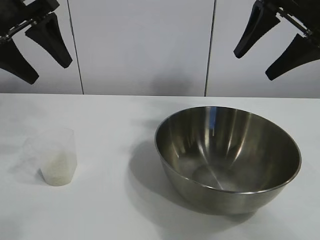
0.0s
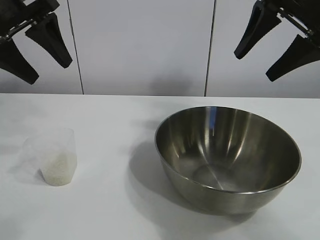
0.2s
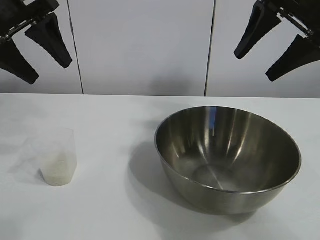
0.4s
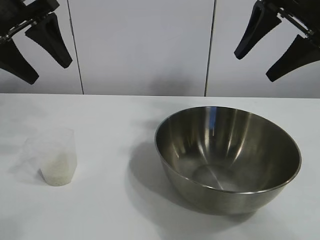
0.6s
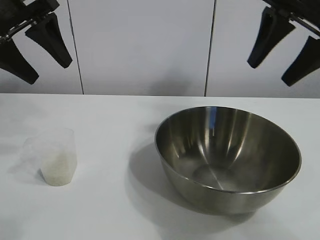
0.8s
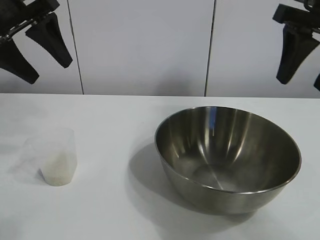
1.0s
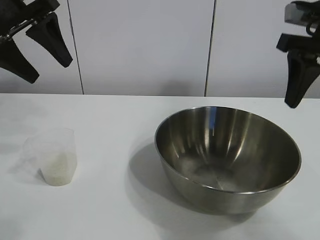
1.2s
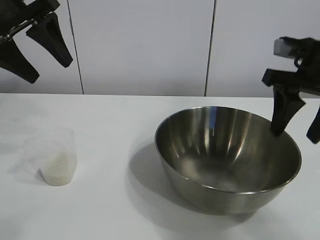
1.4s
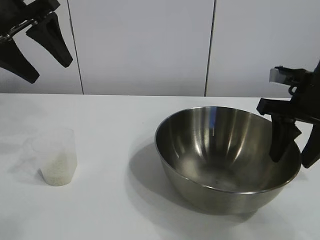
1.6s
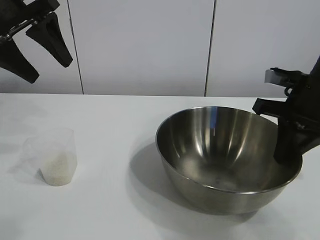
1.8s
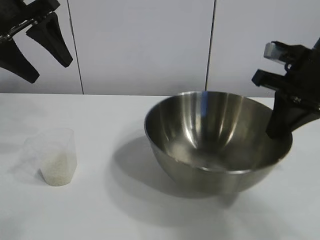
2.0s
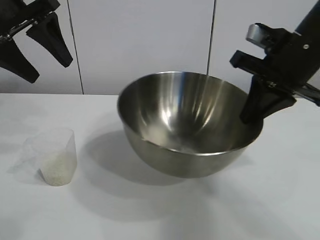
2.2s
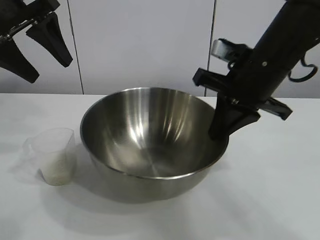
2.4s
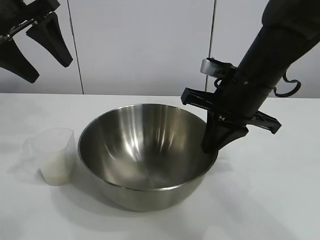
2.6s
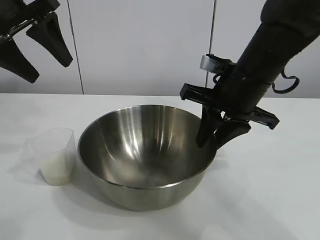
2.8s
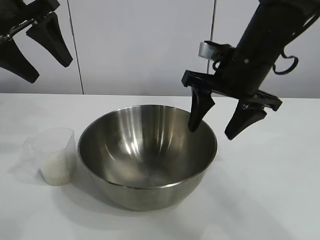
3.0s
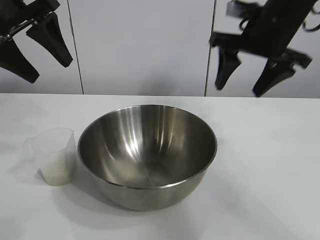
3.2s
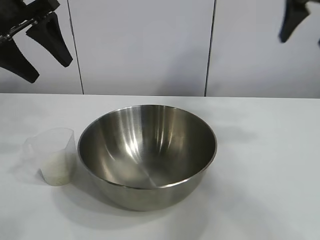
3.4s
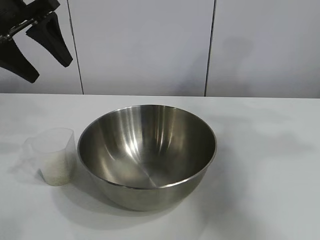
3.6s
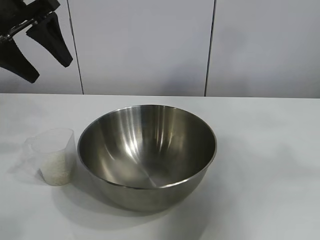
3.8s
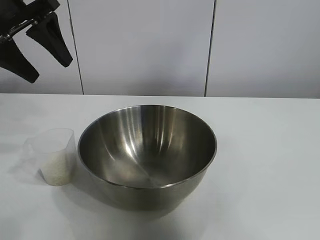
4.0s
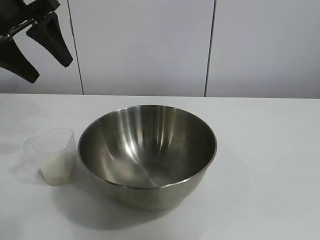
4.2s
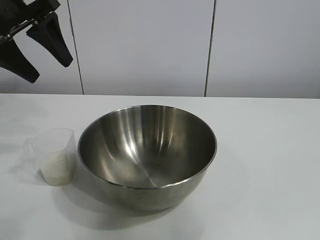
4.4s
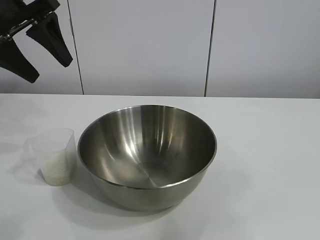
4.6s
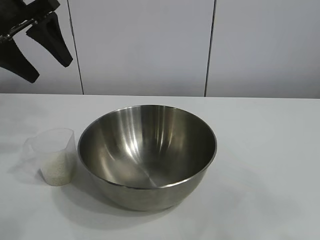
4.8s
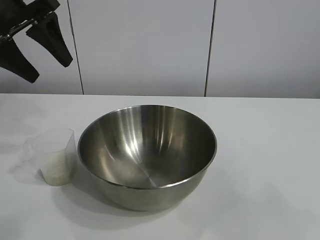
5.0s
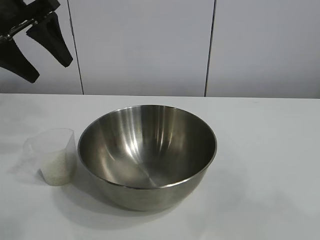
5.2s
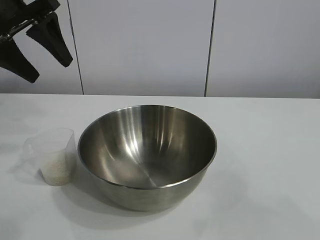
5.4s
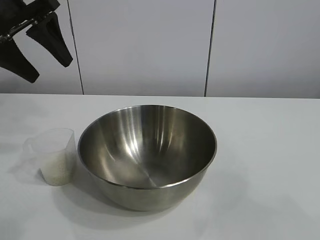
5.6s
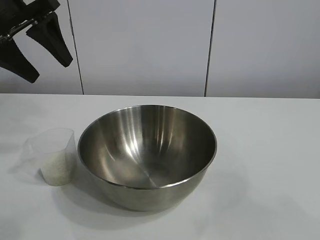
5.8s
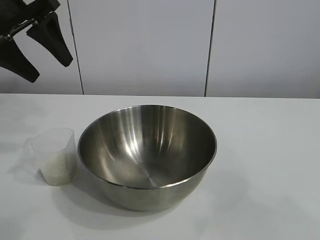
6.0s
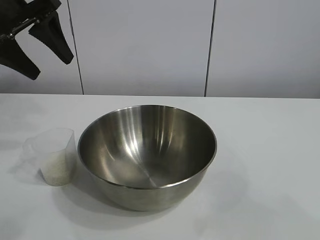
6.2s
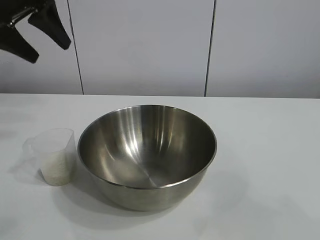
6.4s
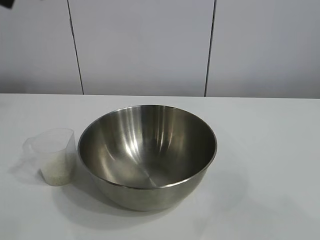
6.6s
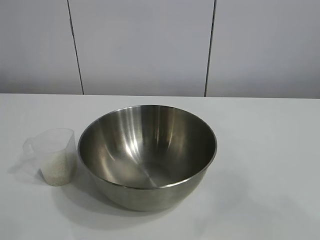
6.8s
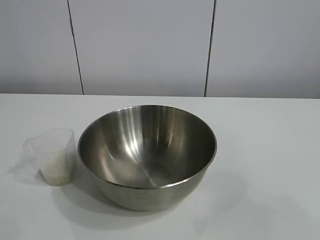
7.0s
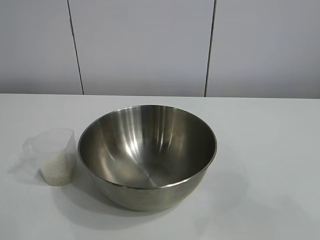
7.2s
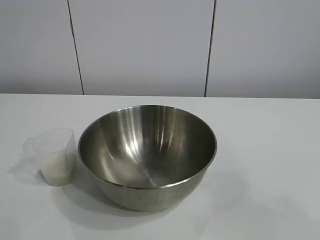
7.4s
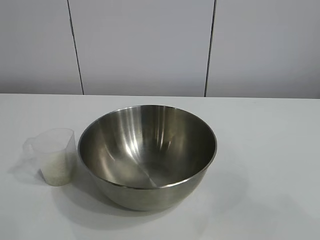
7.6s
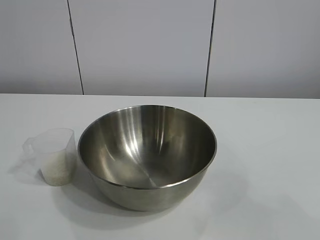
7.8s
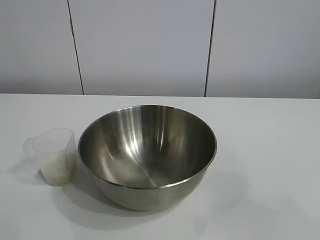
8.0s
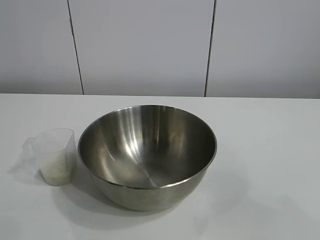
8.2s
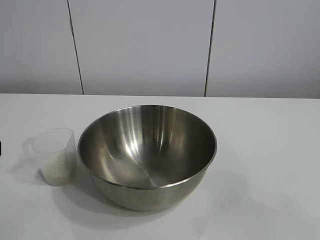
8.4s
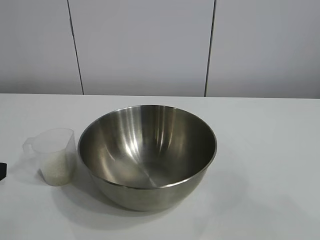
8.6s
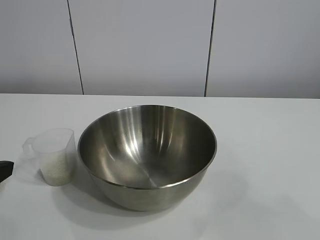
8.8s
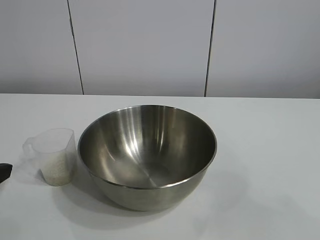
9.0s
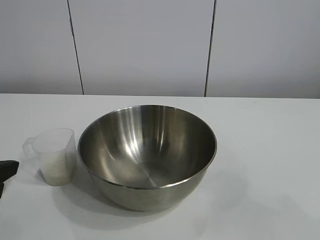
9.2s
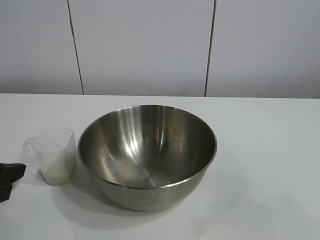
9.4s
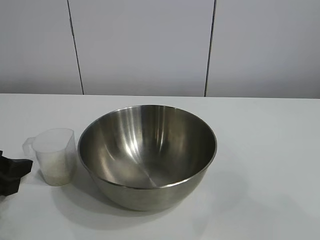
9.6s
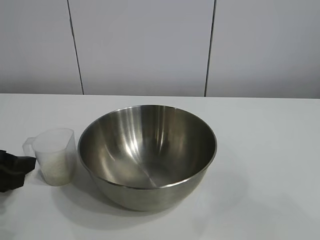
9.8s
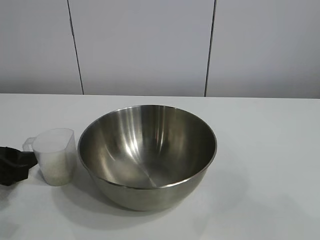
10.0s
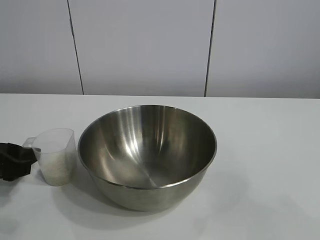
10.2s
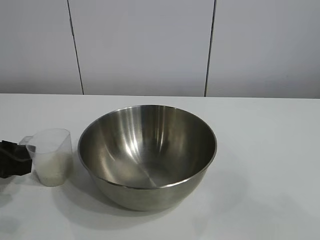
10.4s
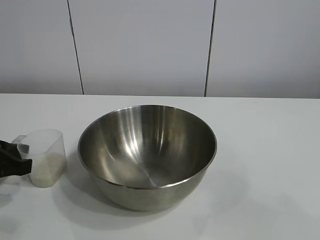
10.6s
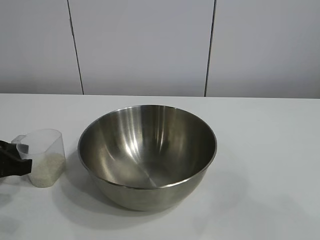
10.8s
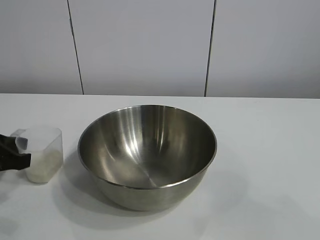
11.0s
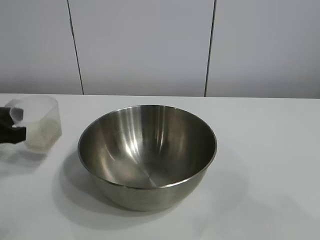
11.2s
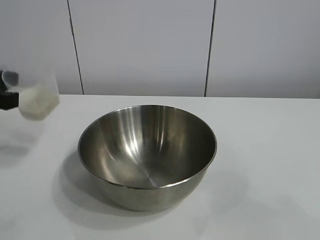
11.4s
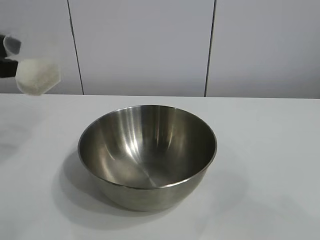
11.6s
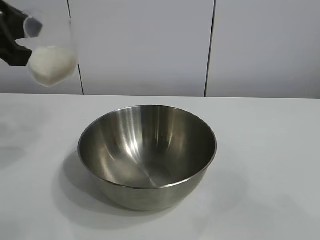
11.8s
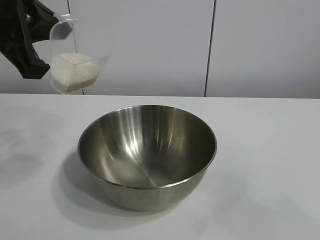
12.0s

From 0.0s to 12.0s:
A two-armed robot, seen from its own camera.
Task of the whole recording: the right gripper grasp the rice container and place it in the center of the table, the left gripper grasp the rice scoop and pour the rice into the rice container.
Step, from 0.6s to 2.6s: Move the bowl in the center of view with right gripper.
Step, from 3.0s to 10.8s: Grasp the cup with rice in it with left gripper.

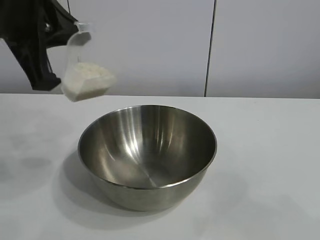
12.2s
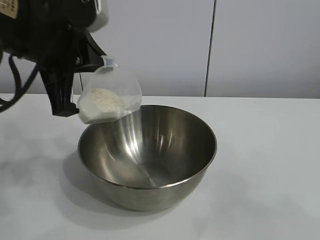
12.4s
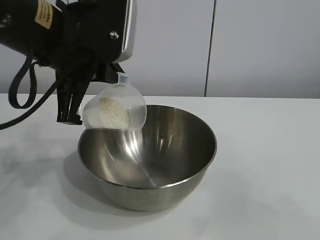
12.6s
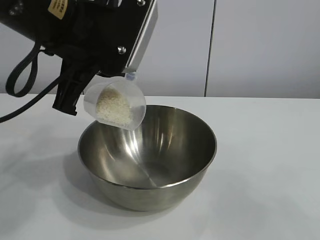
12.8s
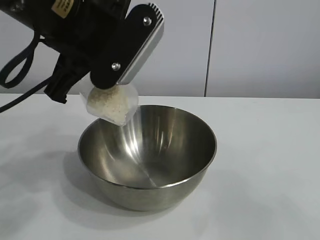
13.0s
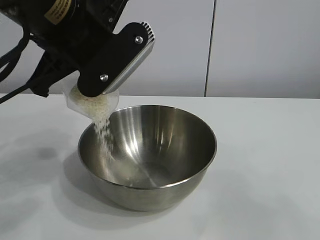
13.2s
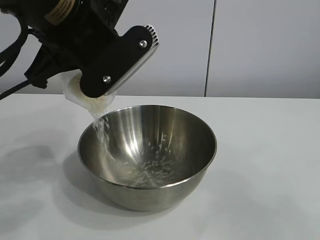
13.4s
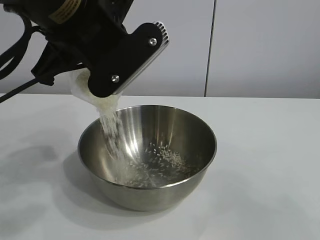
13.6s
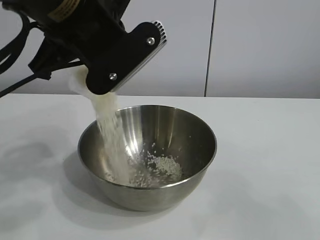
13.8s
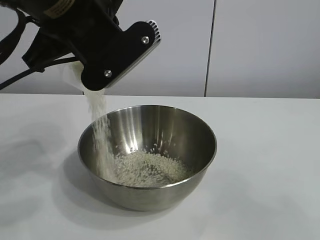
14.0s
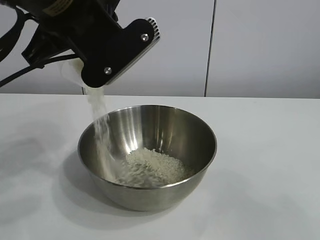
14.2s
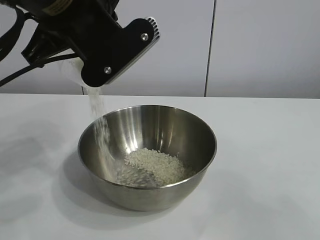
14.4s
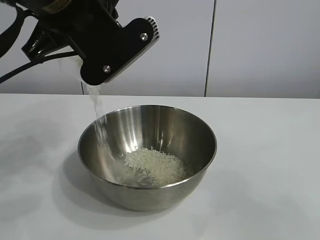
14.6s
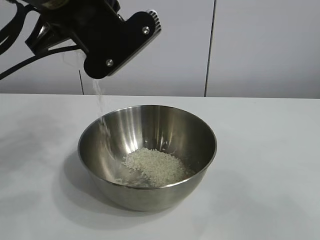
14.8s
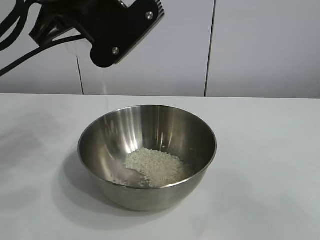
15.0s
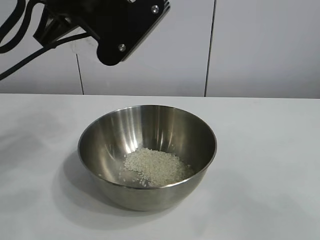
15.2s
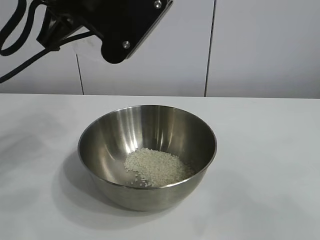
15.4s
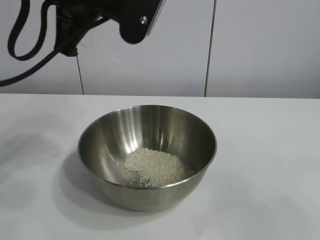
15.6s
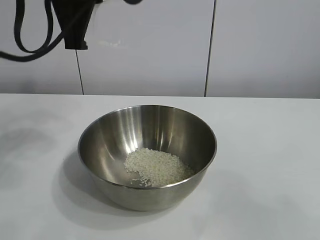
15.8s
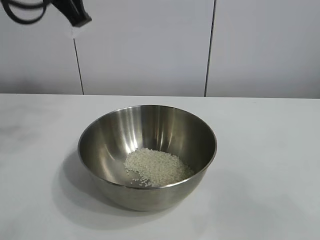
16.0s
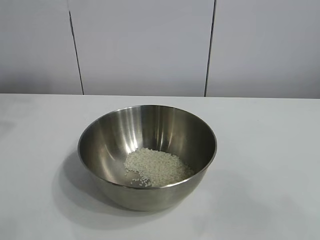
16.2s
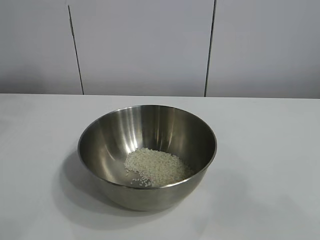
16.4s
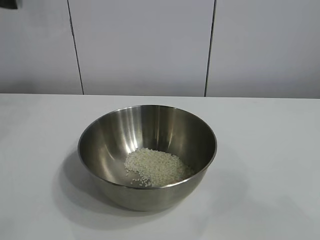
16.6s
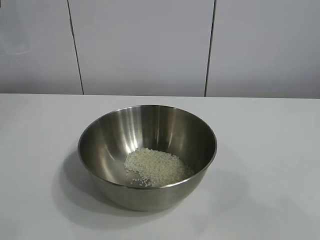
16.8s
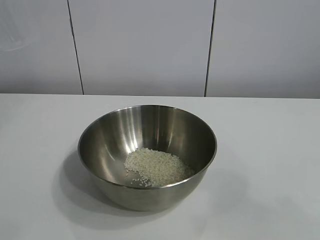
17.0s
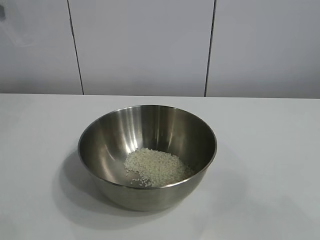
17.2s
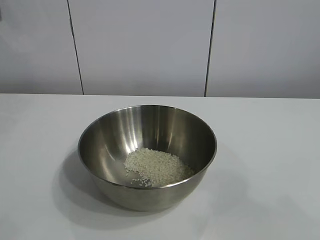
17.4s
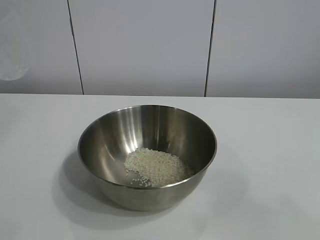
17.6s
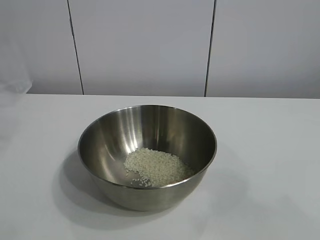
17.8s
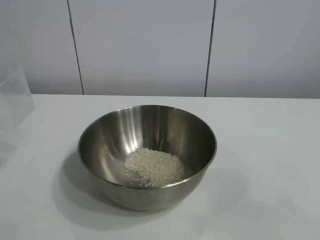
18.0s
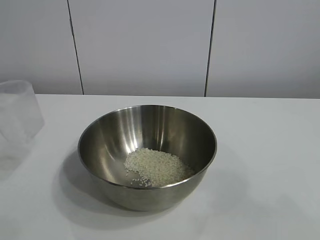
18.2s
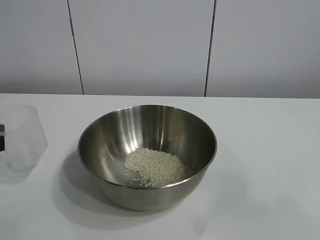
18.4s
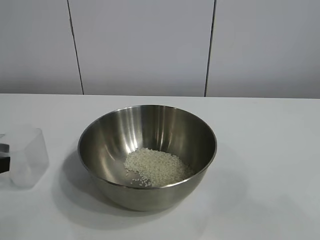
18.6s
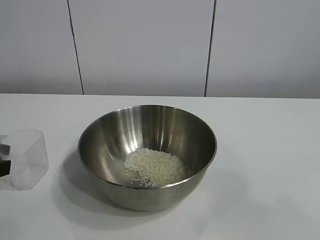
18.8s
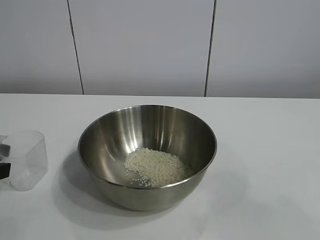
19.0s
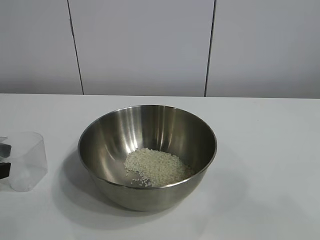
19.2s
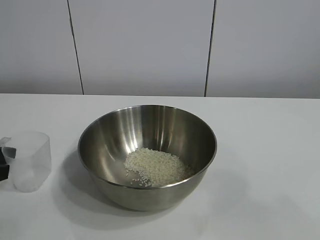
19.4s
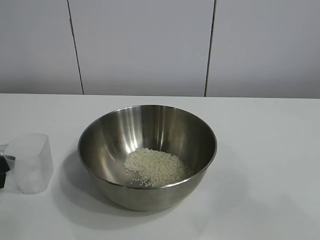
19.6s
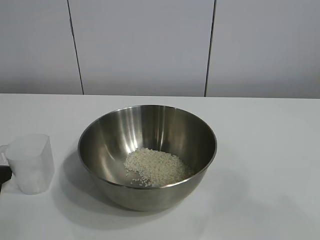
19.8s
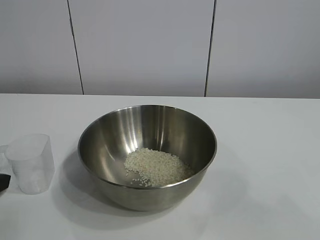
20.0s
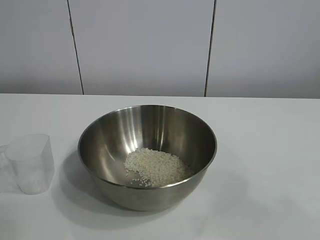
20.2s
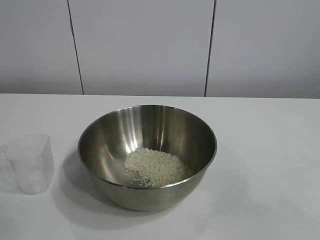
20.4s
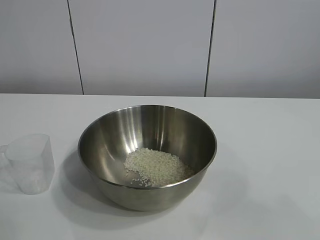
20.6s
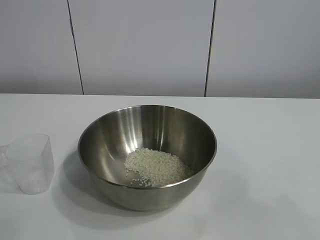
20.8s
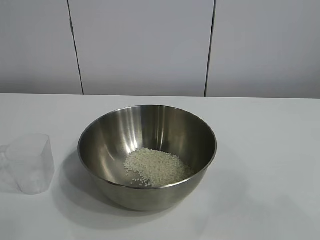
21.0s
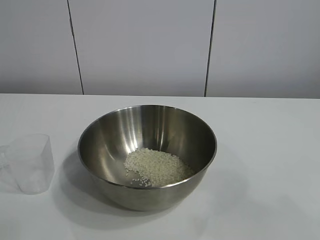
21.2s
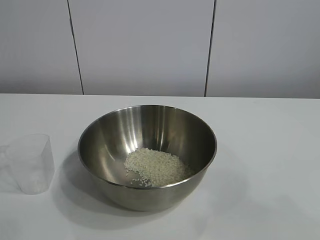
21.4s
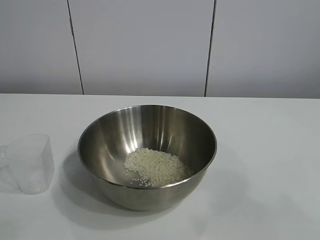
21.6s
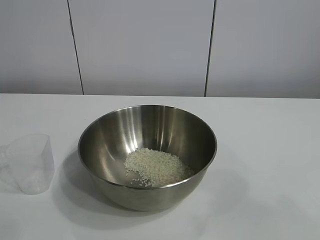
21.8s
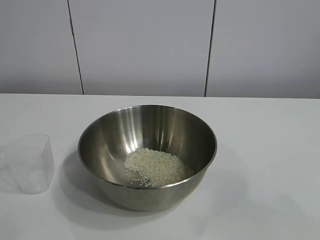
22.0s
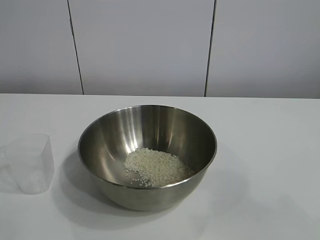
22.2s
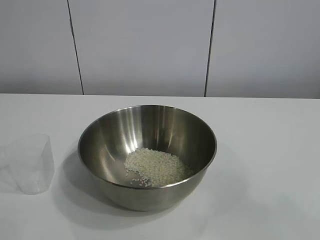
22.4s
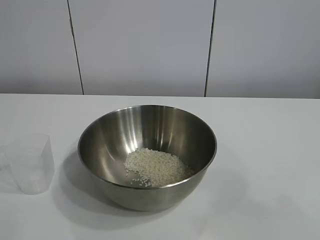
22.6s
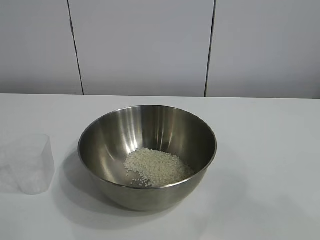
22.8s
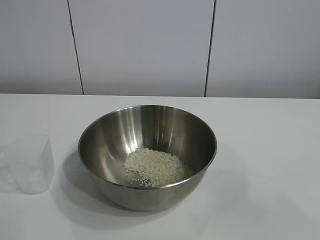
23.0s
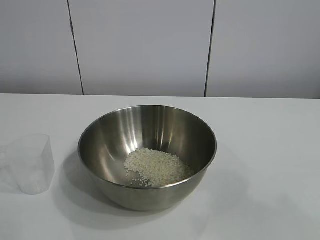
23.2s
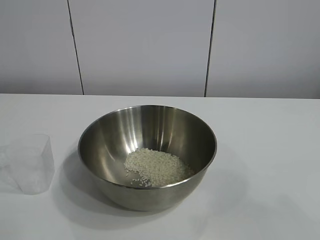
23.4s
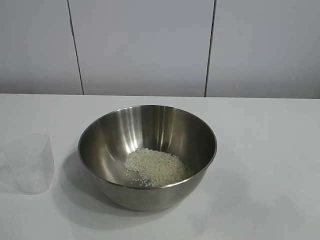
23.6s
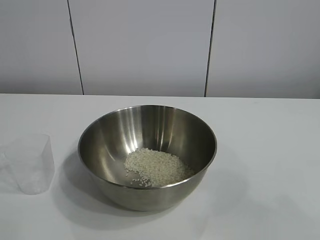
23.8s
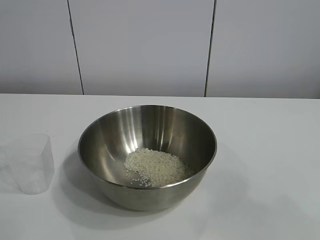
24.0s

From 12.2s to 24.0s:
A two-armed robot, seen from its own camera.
Task of the whole recording: the right gripper grasp the rice container and place it in the center of the table, the left gripper grasp the rice scoop and pour the rice into the rice container.
Step, from 12.2s to 15.4s: Pour the rice from the cup into the bowl with the left gripper.
Step, from 15.6s to 19.8s: Place the cup on the table with the left gripper.
